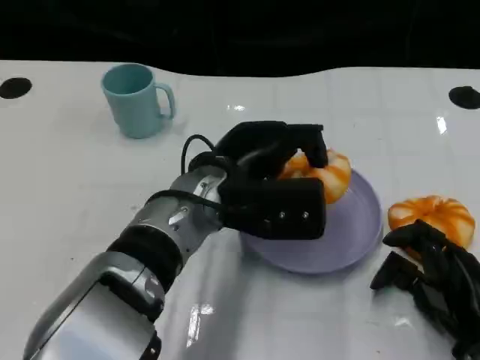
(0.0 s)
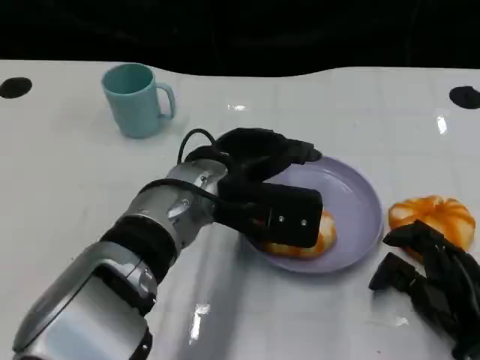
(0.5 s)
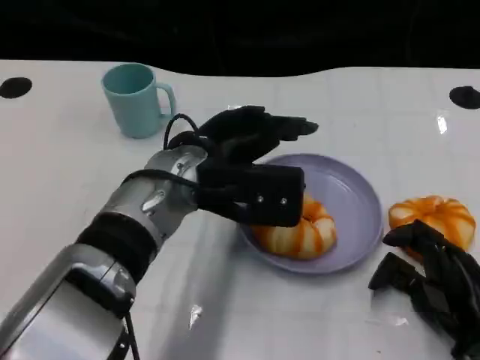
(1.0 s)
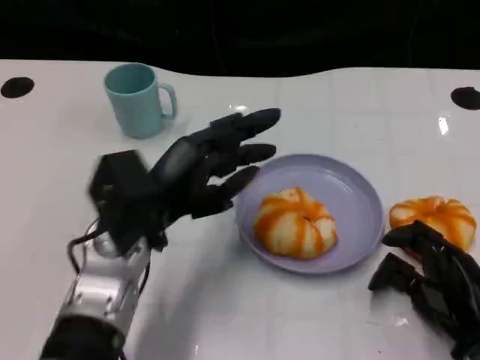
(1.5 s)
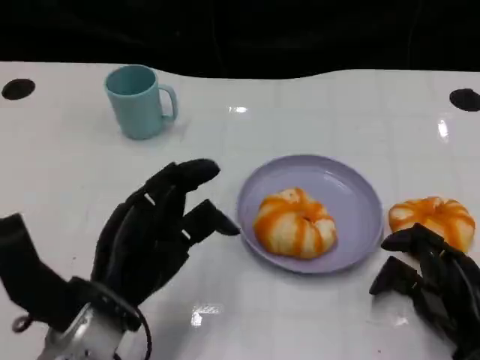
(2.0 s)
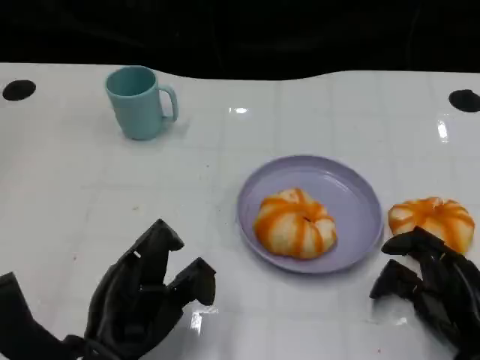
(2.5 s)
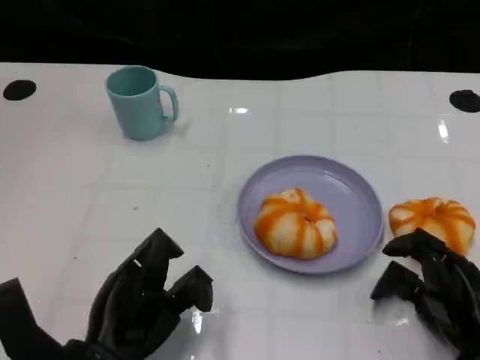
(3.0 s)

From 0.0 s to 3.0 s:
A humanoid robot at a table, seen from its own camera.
Task of the whole recording: Grasp the bread from the table and place it into the plate.
From 0.0 s to 1.5 s: The left hand is displaced to the left by roughly 10 cm.
From 1.5 s to 3.0 s: The left hand is displaced backward and downward by approximately 10 cm.

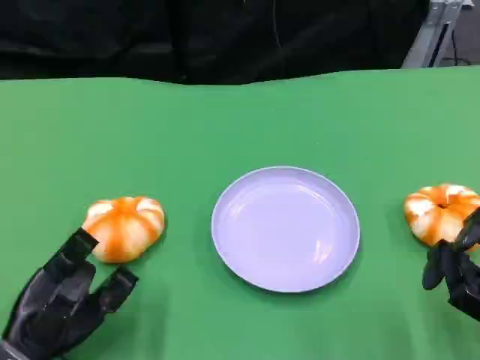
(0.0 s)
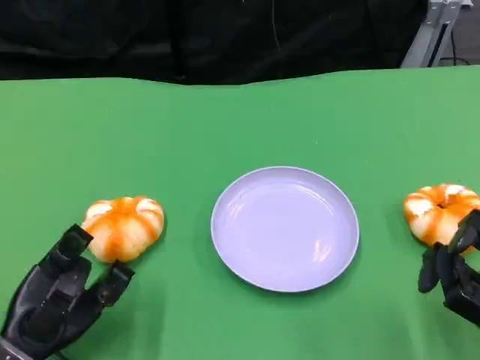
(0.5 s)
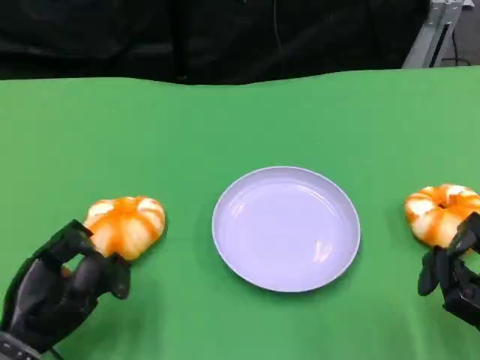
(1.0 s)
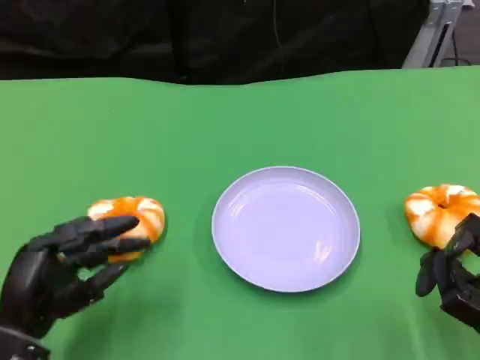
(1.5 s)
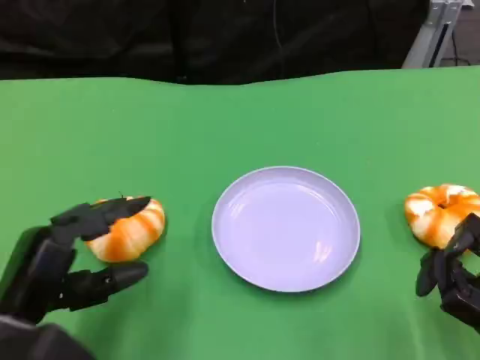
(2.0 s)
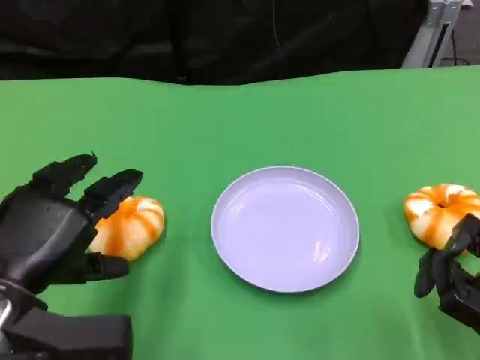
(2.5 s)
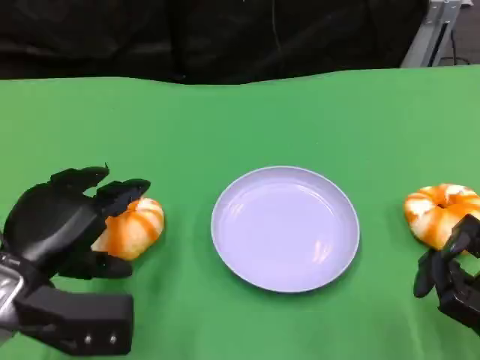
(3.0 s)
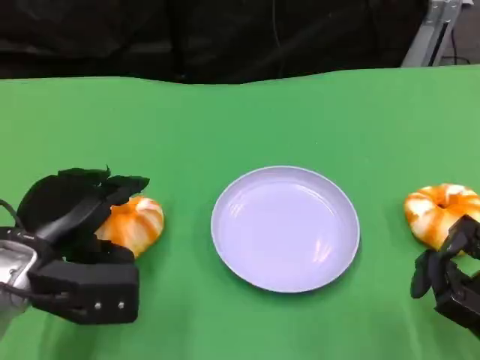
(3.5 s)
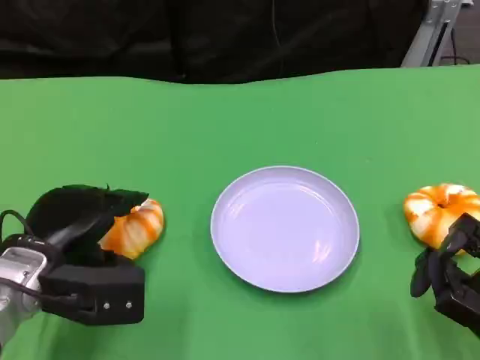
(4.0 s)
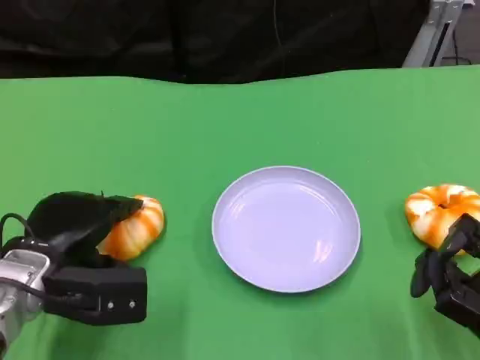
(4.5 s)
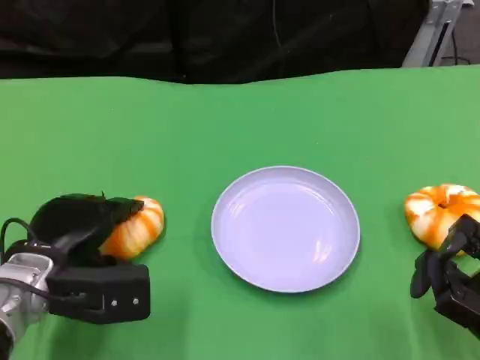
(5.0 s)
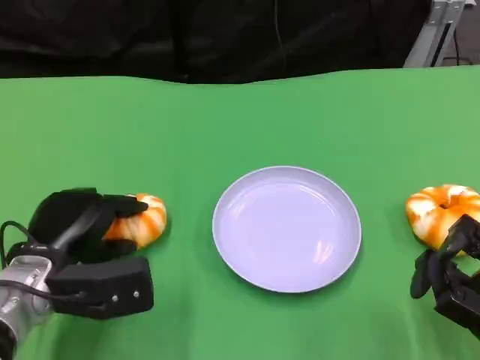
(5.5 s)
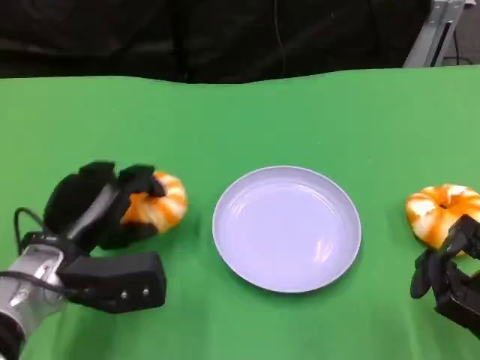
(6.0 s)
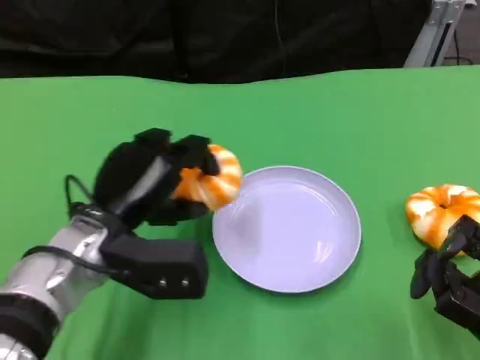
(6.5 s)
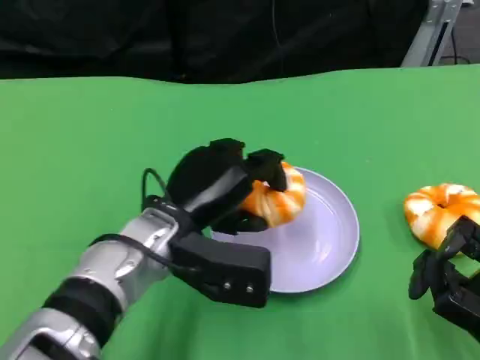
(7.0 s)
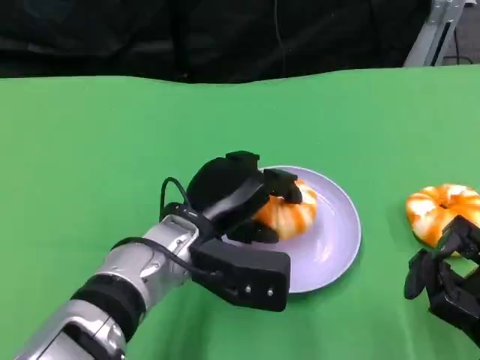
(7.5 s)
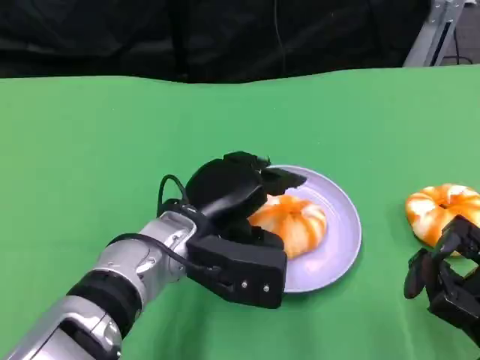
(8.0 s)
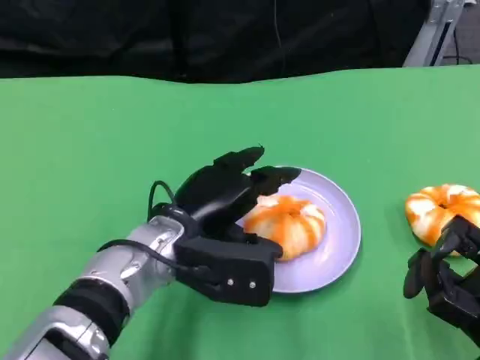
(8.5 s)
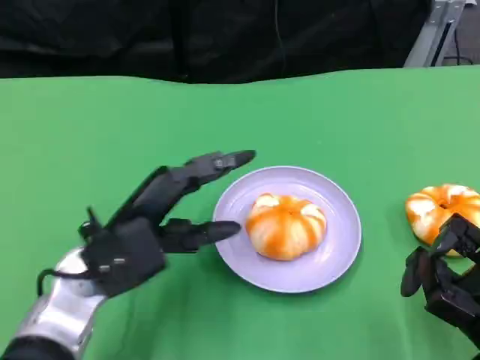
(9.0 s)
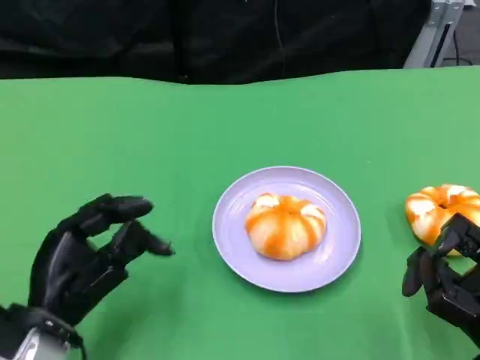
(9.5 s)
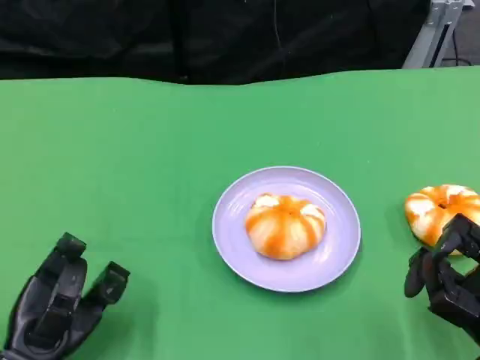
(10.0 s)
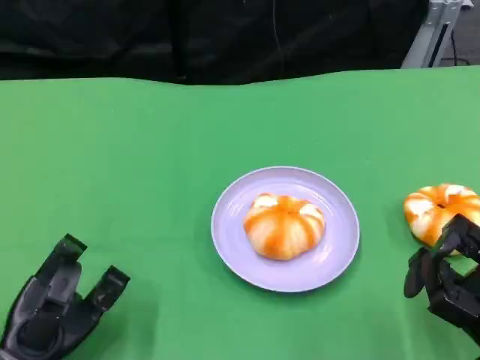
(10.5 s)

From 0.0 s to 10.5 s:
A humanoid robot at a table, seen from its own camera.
Task of the whole recording: Grasp the bread from the table and place it into the plate.
From 0.0 s to 2.0 s: The left hand travels upward by roughly 5 cm.
From 2.0 s to 4.0 s: The left hand shifts about 5 cm forward.
From 4.0 s to 6.5 s: The left hand is displaced to the right by about 10 cm.
From 6.5 s to 8.5 s: The left hand goes some 5 cm to the right.
From 8.5 s to 10.5 s: The left hand travels to the left, backward and downward by approximately 20 cm.

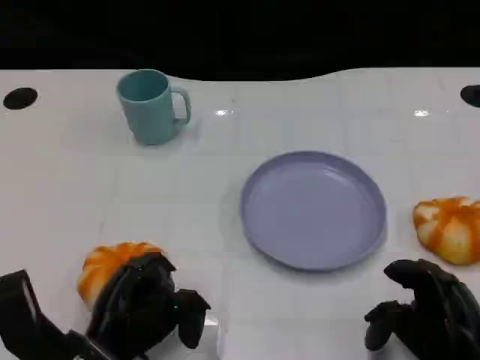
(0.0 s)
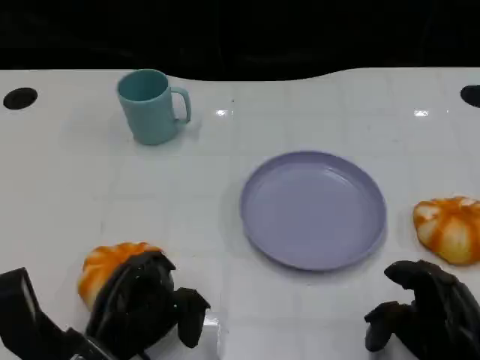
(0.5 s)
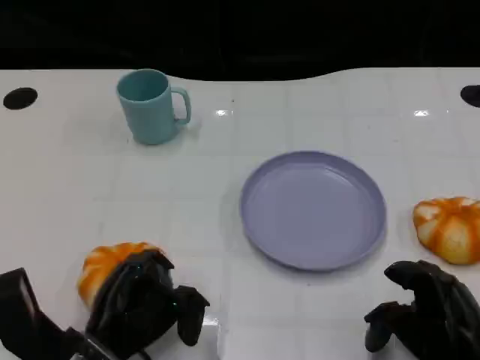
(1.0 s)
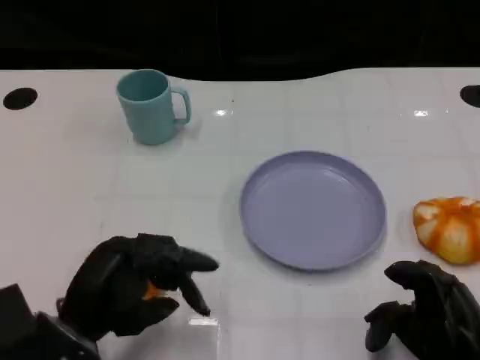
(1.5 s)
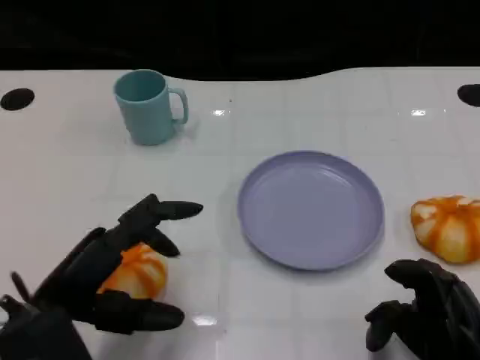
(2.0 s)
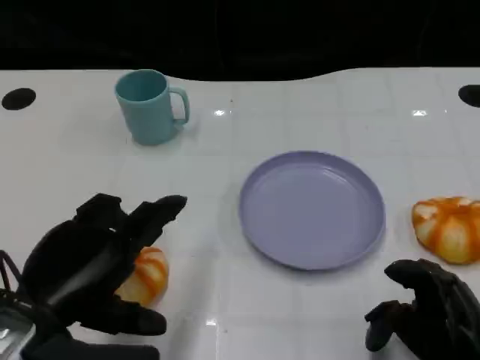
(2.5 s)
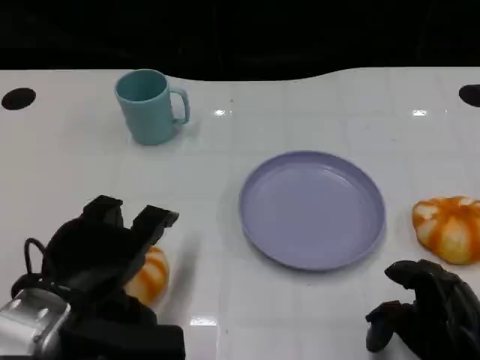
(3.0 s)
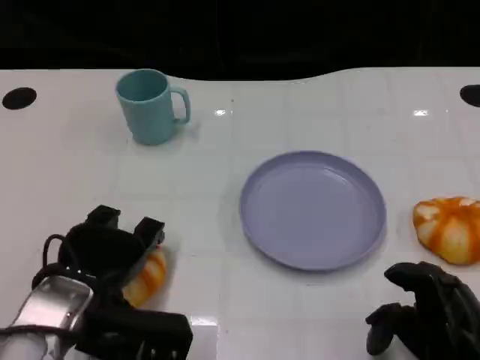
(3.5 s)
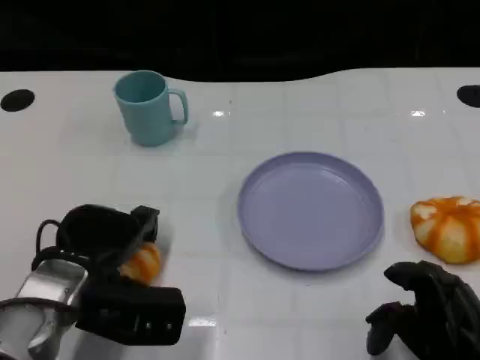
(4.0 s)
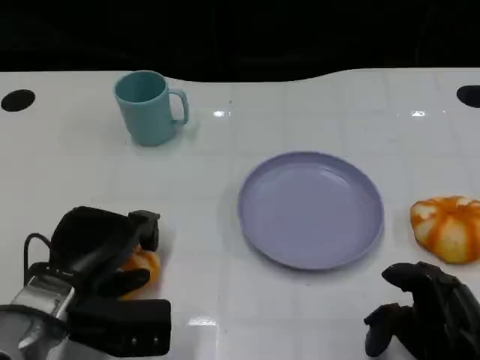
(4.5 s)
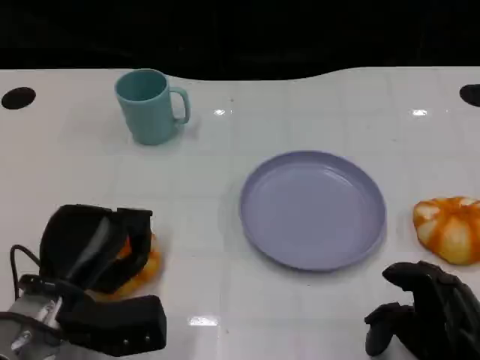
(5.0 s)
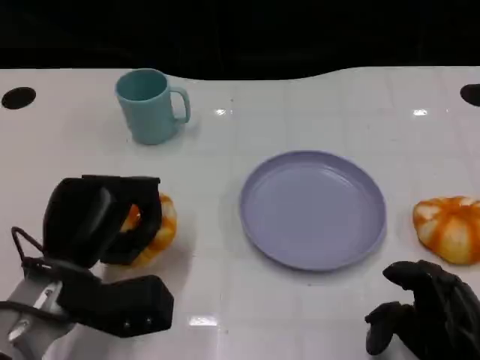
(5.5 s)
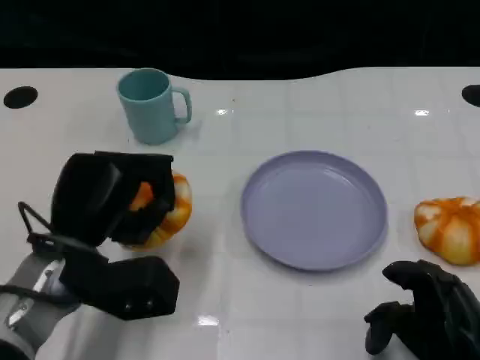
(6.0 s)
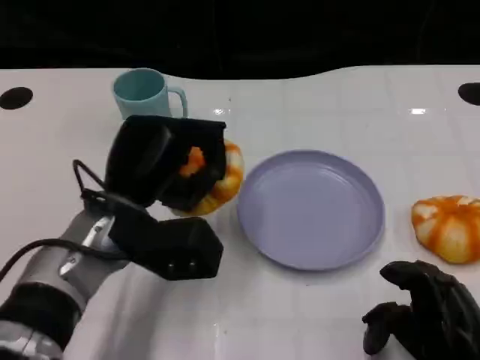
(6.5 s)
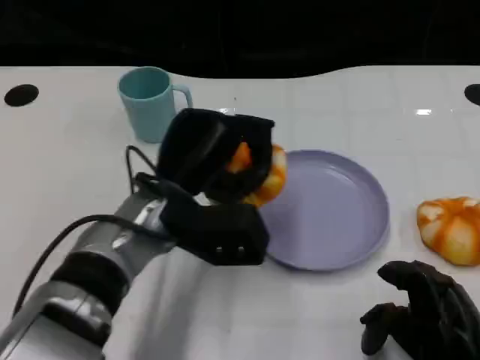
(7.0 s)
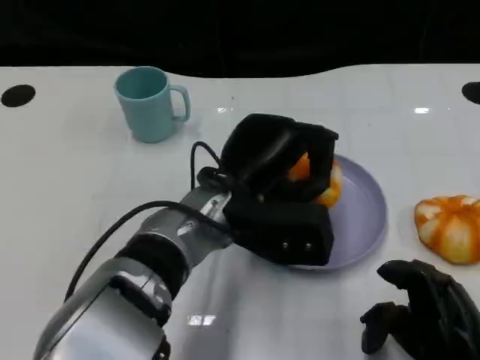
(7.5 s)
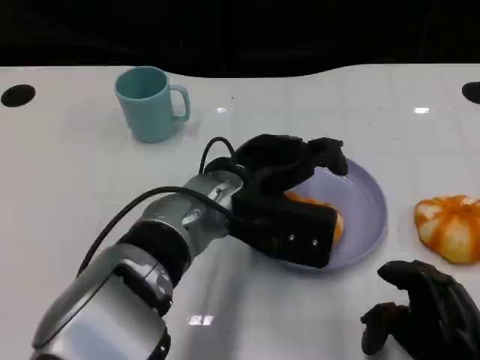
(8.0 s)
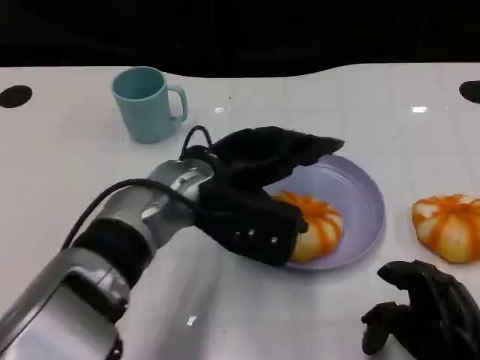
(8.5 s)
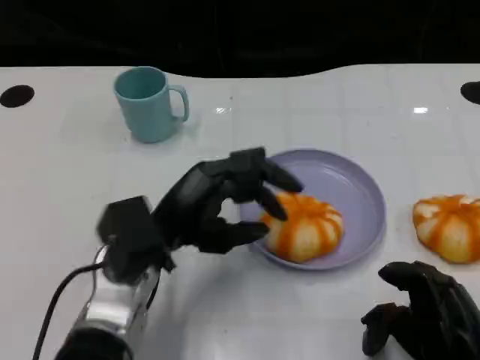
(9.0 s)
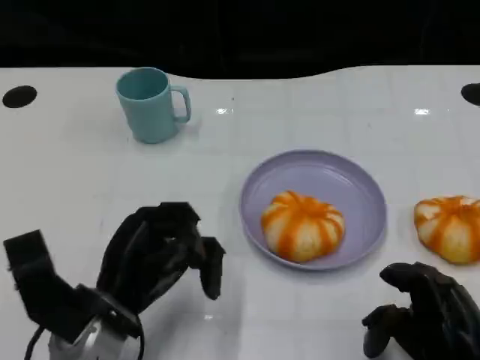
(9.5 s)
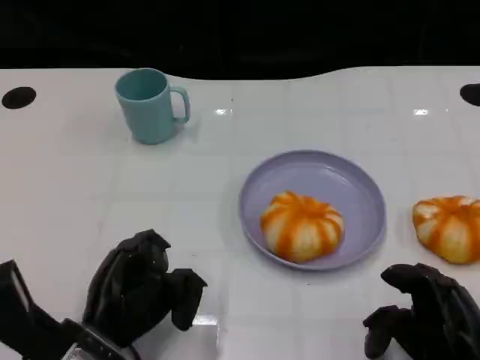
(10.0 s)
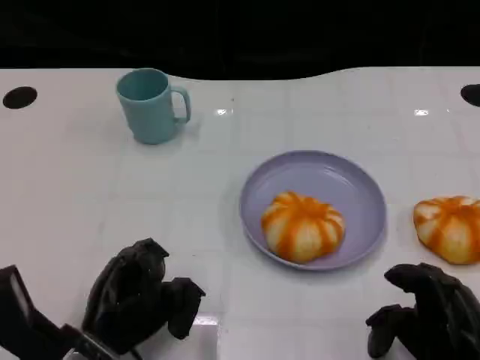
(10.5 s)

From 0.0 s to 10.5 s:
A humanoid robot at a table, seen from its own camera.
Task of the whole recording: Grasp the bread from the table and place it into the plate.
From 0.0 s to 2.0 s: The left hand travels upward by approximately 10 cm.
From 2.0 s to 4.0 s: The left hand moves forward, some 5 cm.
From 4.0 s to 6.5 s: The left hand travels to the right by about 5 cm.
From 6.5 s to 8.5 s: The left hand shifts some 5 cm to the right.
From 8.5 s to 10.5 s: The left hand is displaced downward, backward and to the left by approximately 20 cm.

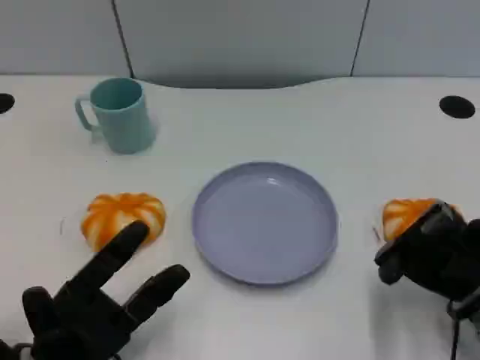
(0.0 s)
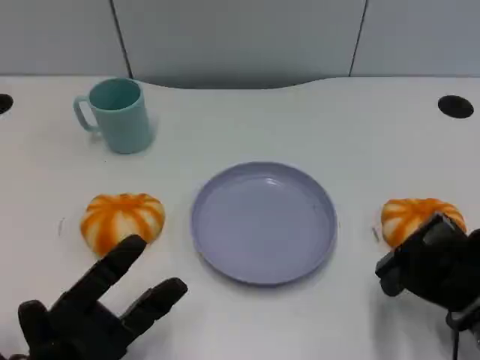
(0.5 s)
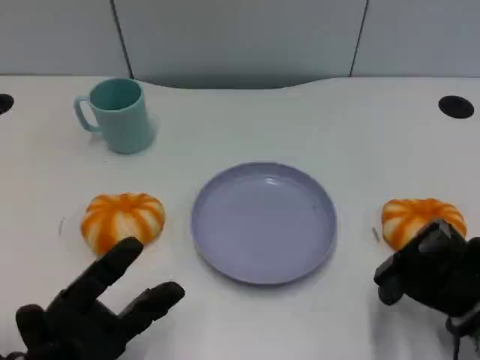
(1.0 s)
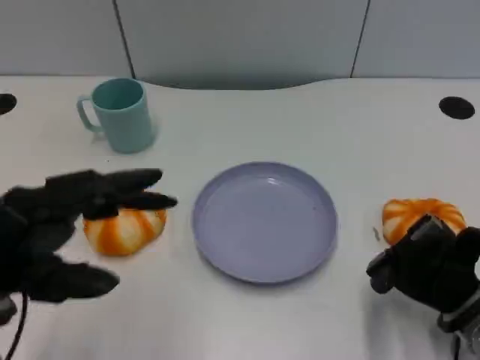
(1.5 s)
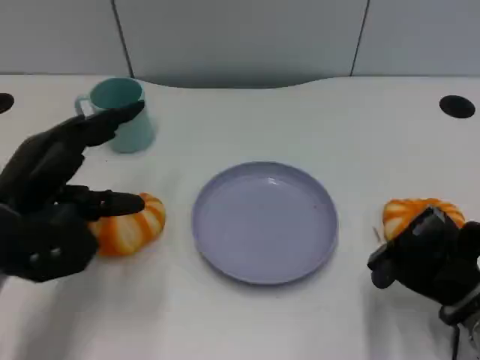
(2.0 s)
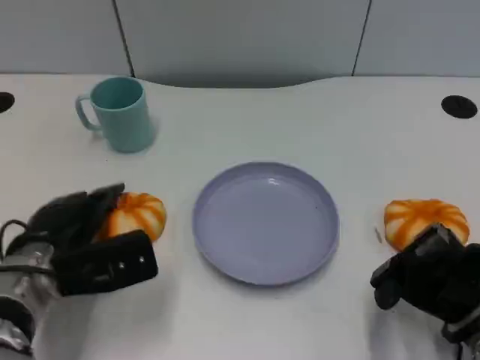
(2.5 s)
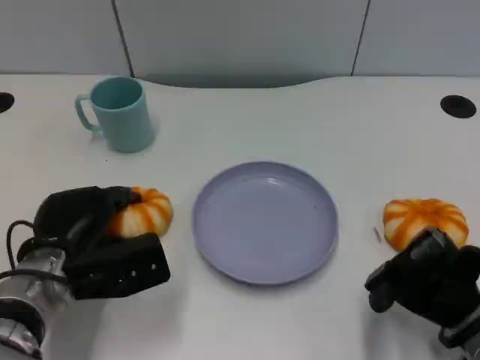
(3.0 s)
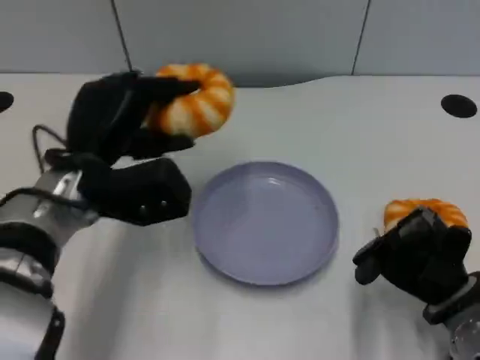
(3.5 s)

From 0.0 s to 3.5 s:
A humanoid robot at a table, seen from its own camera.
Task of the whole recording: Grasp the bread from the table and place it into the plate.
From 0.0 s to 2.0 s: The left hand shifts about 15 cm upward and forward.
From 2.0 s to 3.5 s: The left hand heads to the right, covering about 10 cm, and reaches about 5 cm downward, then returns.
